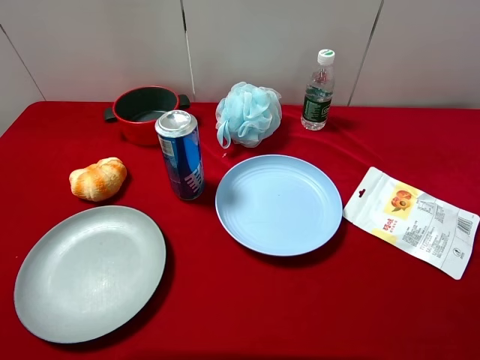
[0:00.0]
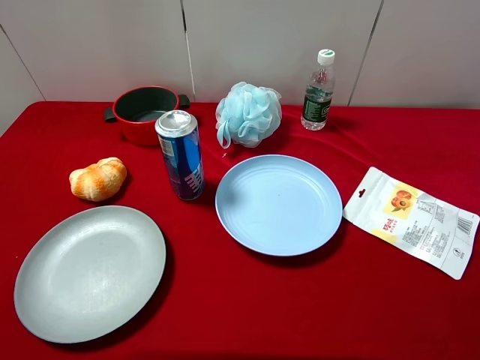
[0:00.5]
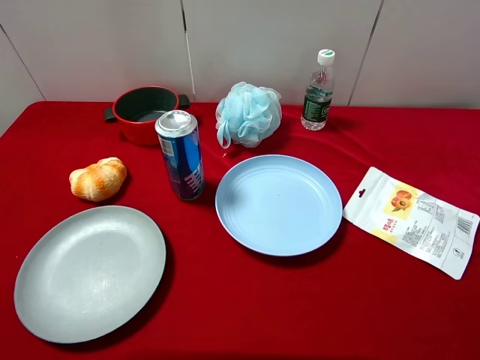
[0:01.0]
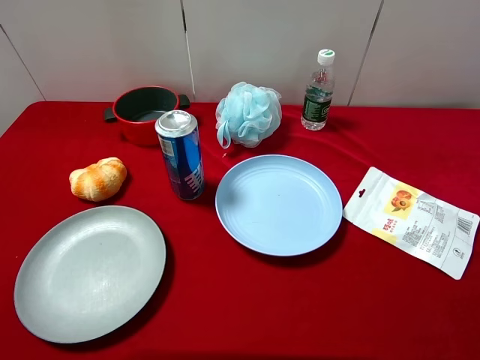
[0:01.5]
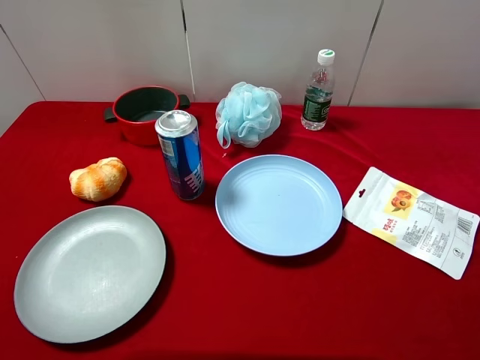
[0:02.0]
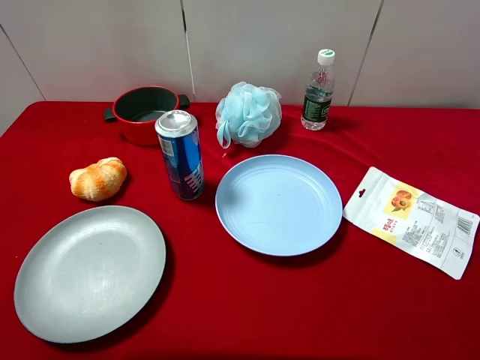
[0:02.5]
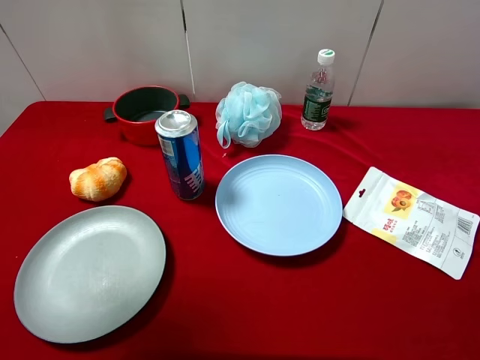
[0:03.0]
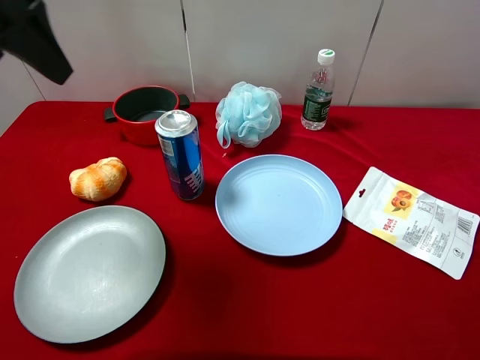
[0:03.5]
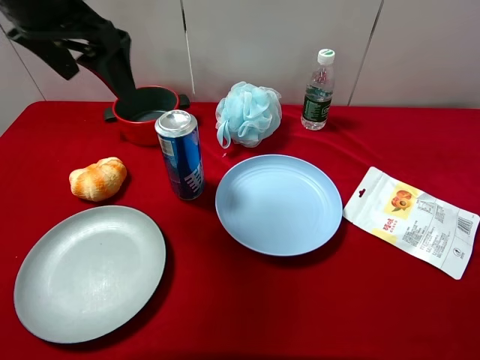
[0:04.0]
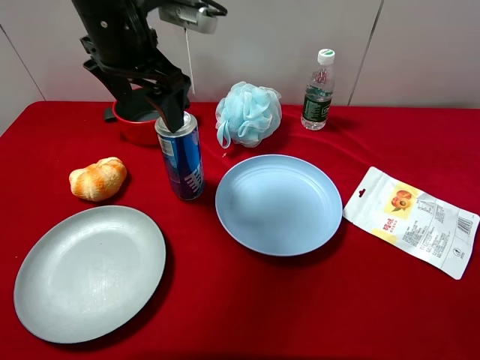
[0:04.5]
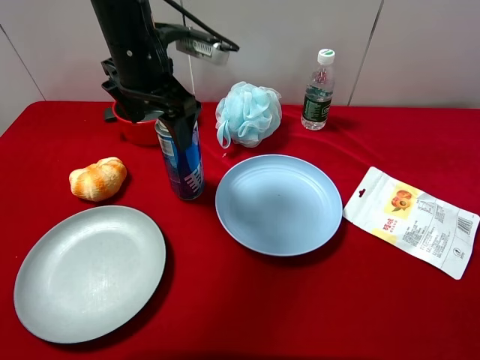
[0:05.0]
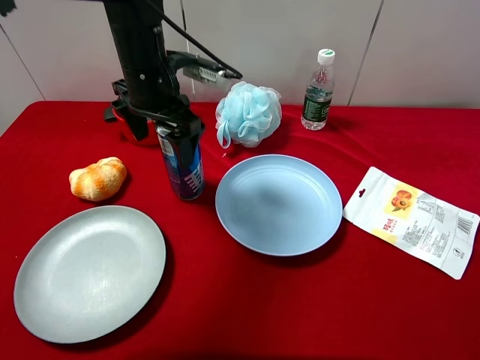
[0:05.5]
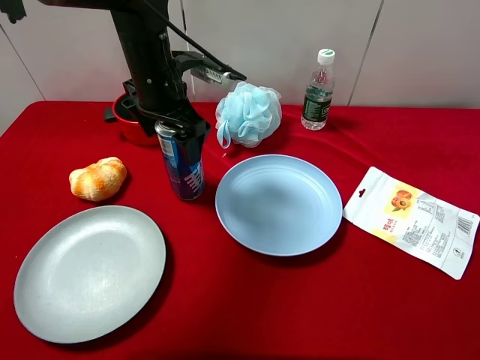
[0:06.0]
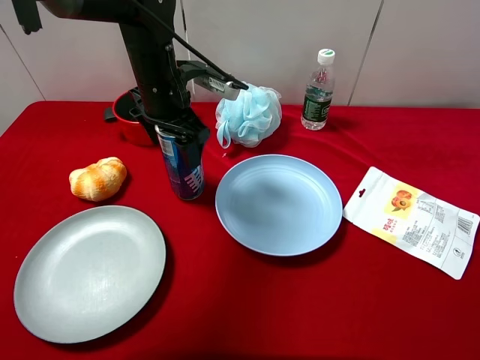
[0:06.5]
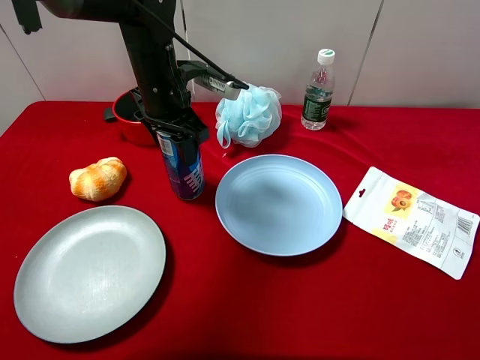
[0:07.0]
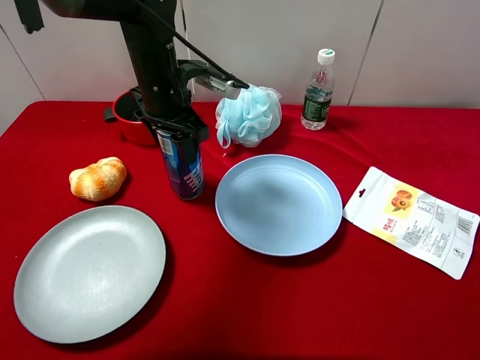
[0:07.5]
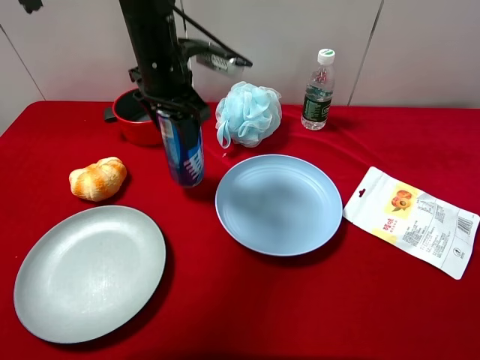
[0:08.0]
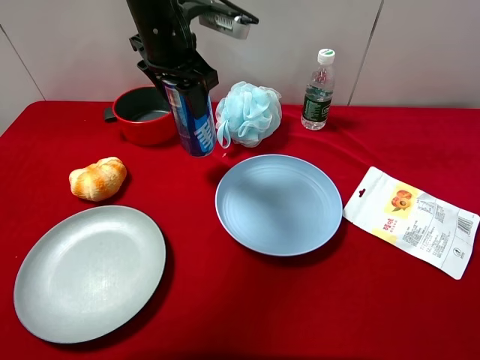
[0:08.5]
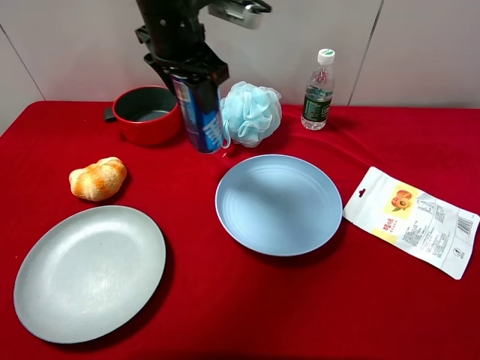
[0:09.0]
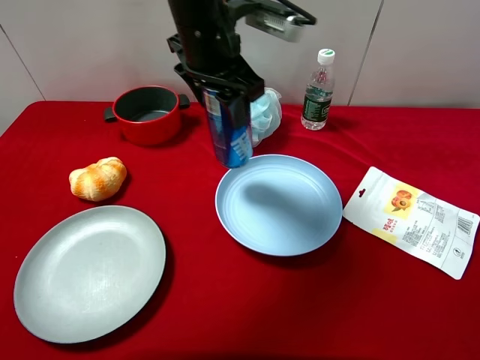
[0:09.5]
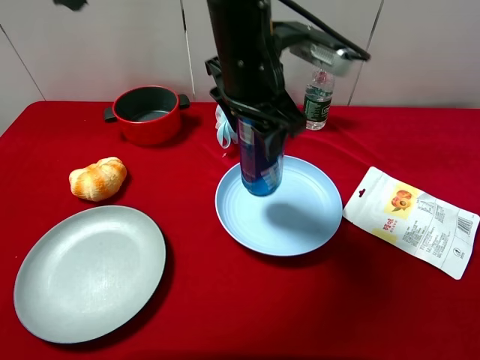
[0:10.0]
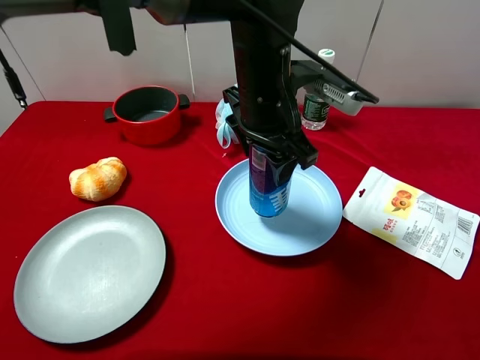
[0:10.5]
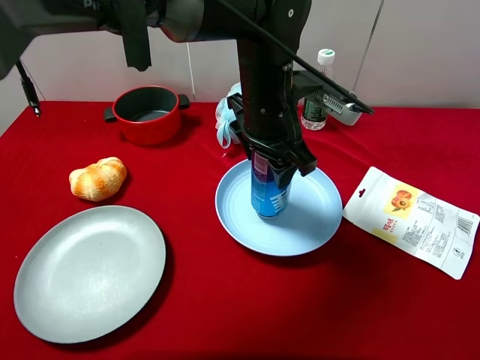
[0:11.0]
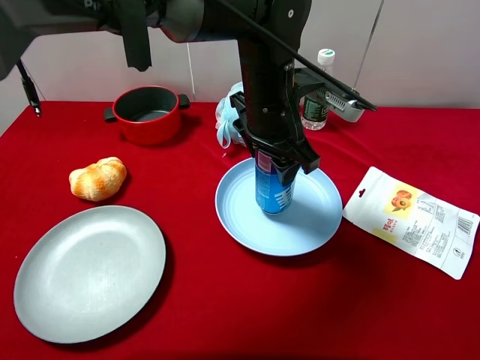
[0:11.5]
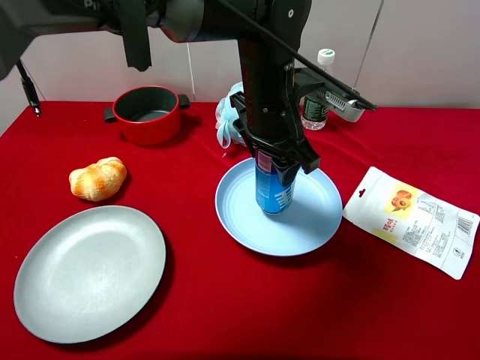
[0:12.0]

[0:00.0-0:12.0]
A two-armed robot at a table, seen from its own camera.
Task of the whole recording: pick up an item with a gripper and place it in a random container on the desktop.
0:02.0 to 0:04.0: The left gripper moves forward and to the right, some 30 cm.
0:04.0 to 0:06.0: The left gripper goes some 15 cm downward, to the right and forward.
0:06.0 to 0:08.0: The left gripper closes its fingers.
0:08.0 to 0:10.0: The left gripper is displaced to the right and backward by approximately 15 cm.
0:10.0 to 0:12.0: The left gripper is displaced downward by some 5 cm.

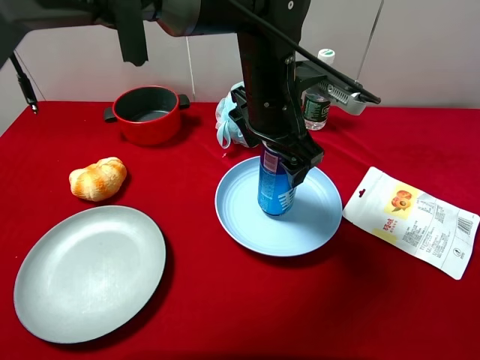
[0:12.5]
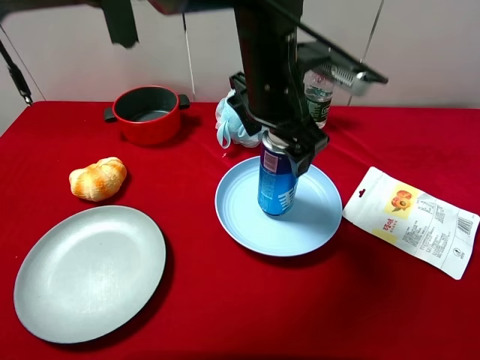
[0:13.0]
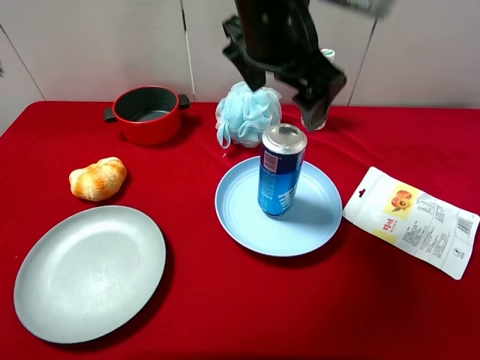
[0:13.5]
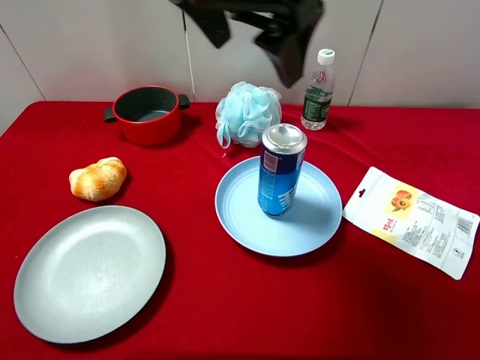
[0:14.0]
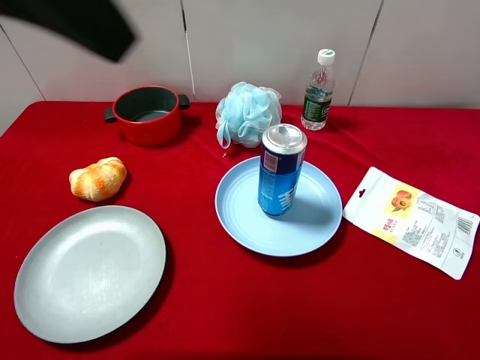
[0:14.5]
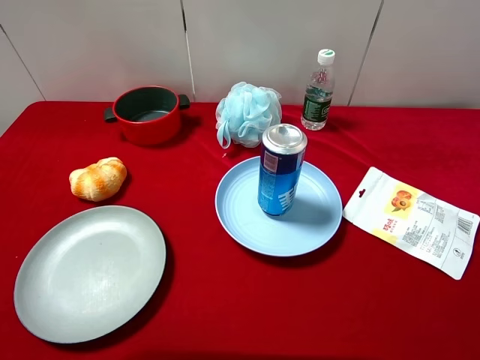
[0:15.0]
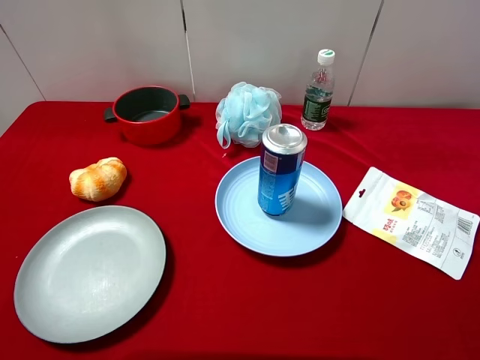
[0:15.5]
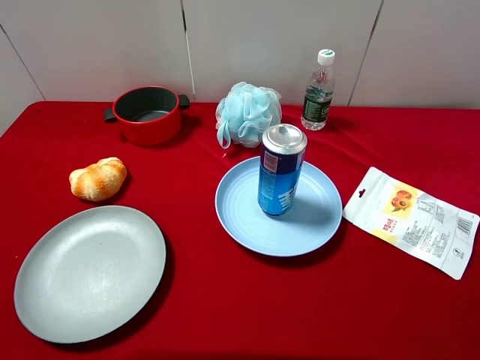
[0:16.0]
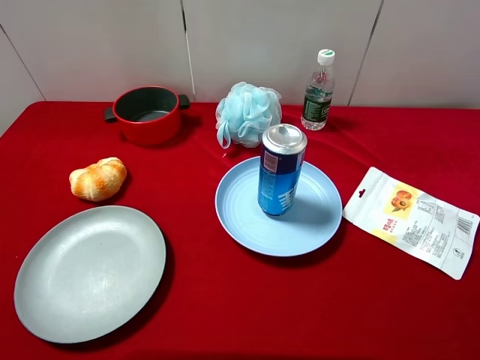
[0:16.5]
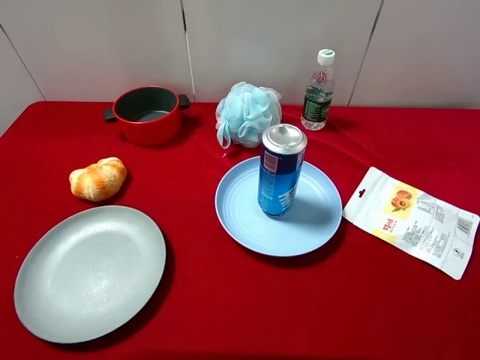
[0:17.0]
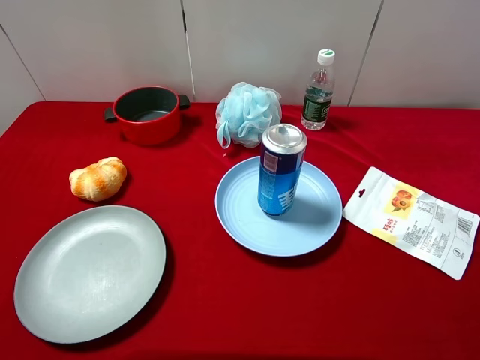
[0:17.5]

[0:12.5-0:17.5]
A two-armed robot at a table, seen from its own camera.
Task of the whole recording: pick up an item with a gripper and place it in a random container on the desktop.
0:12.5 to 0:15.0: The left gripper heads to the left, backward and upward, covering some 40 cm.

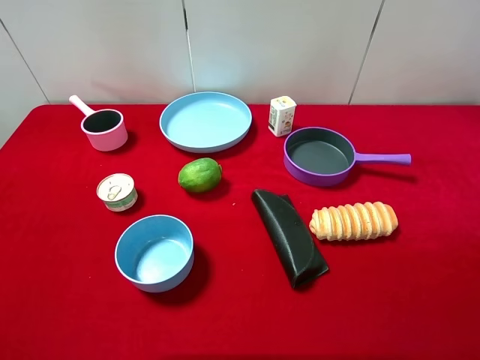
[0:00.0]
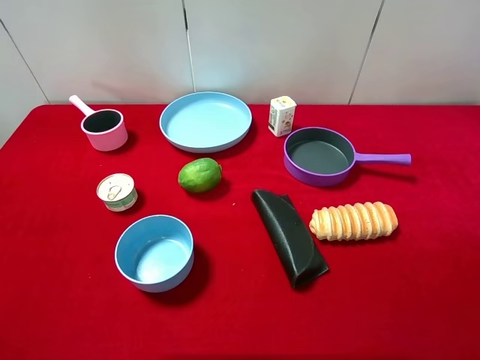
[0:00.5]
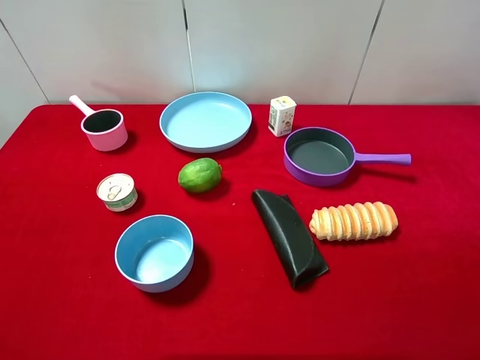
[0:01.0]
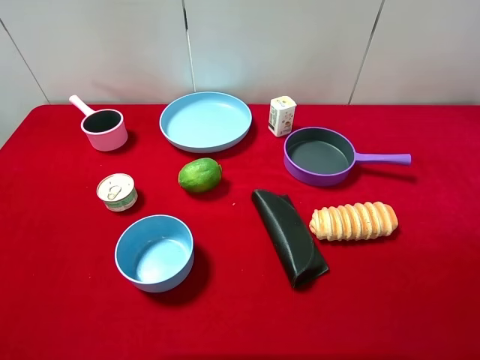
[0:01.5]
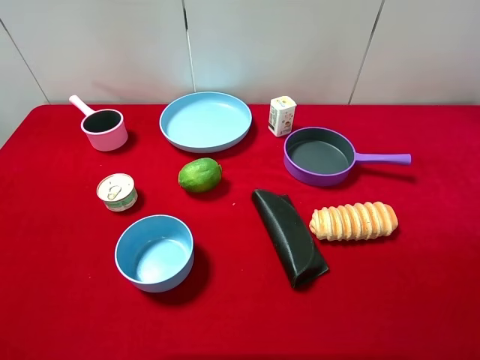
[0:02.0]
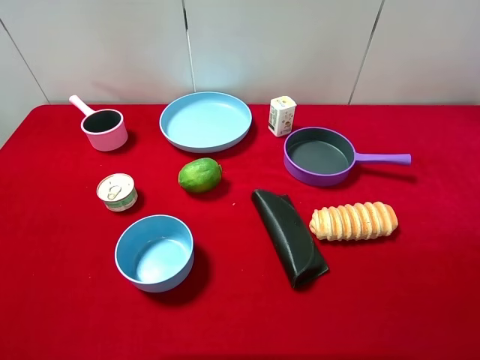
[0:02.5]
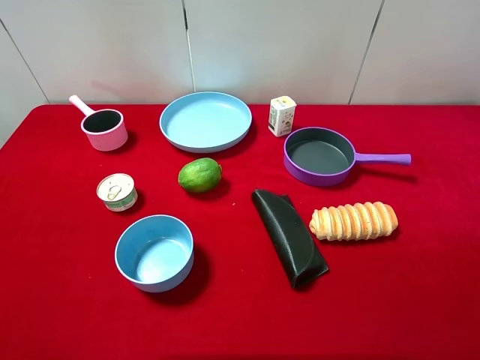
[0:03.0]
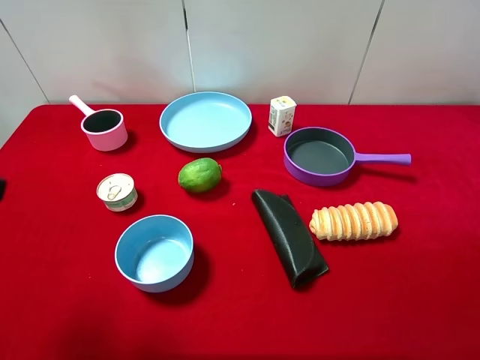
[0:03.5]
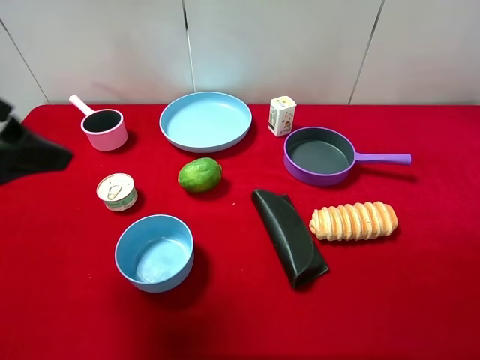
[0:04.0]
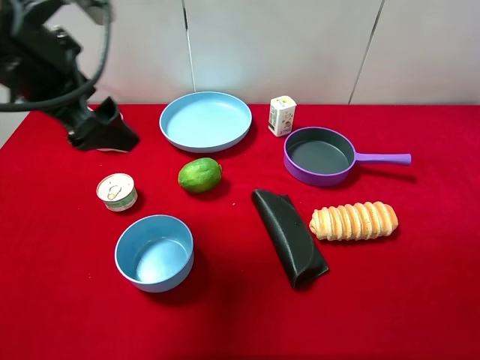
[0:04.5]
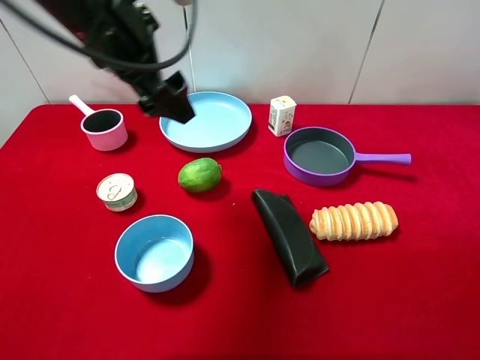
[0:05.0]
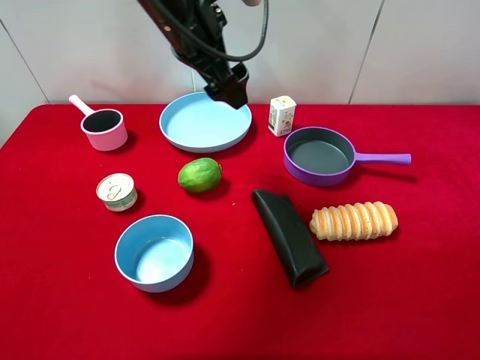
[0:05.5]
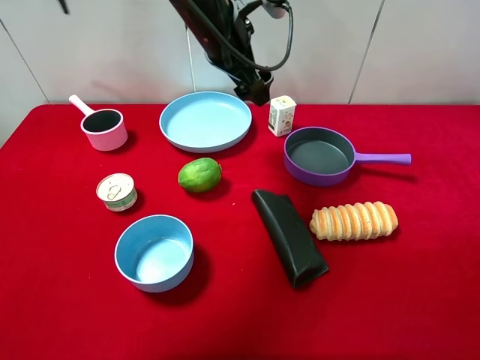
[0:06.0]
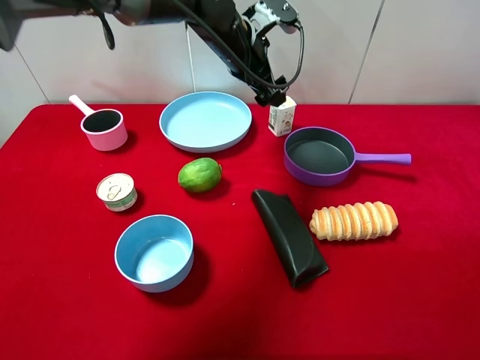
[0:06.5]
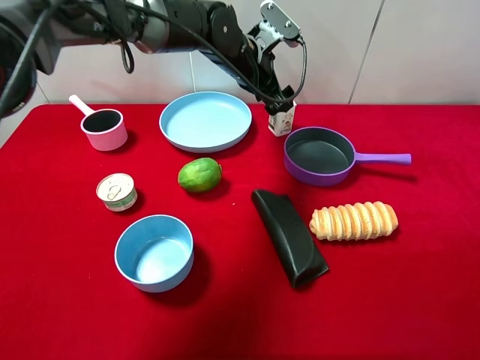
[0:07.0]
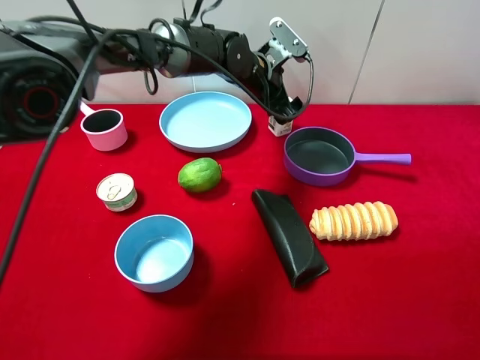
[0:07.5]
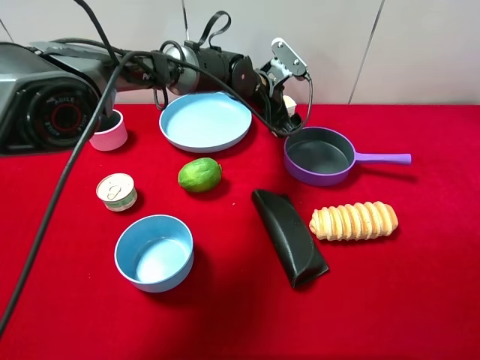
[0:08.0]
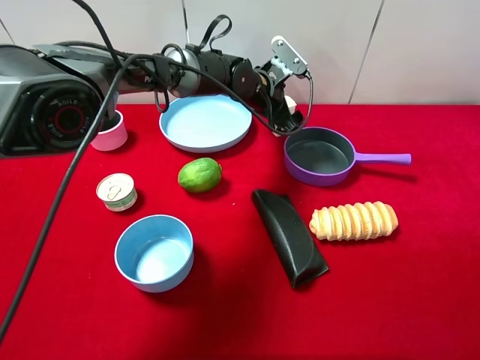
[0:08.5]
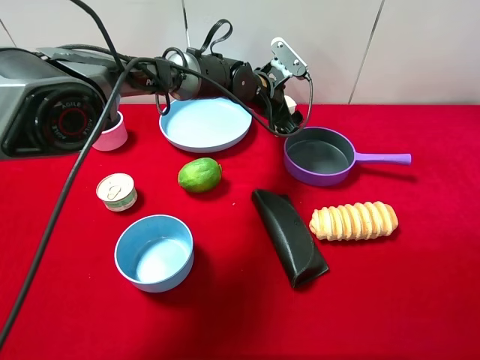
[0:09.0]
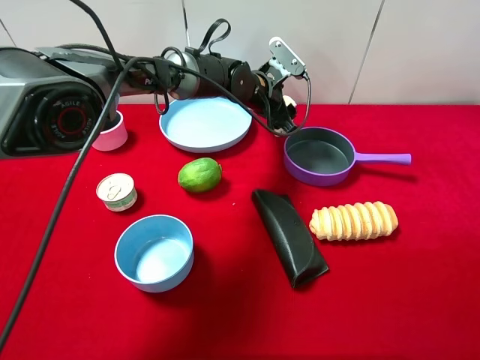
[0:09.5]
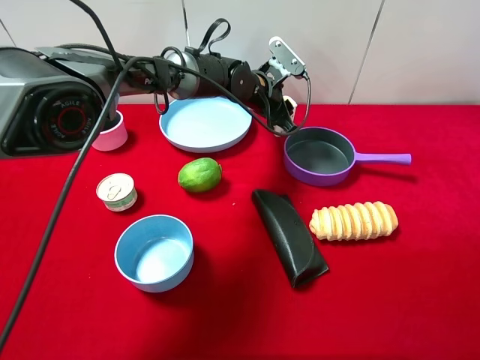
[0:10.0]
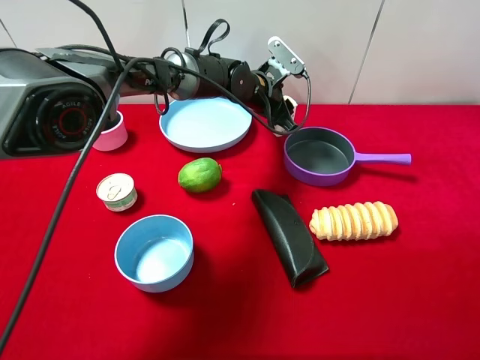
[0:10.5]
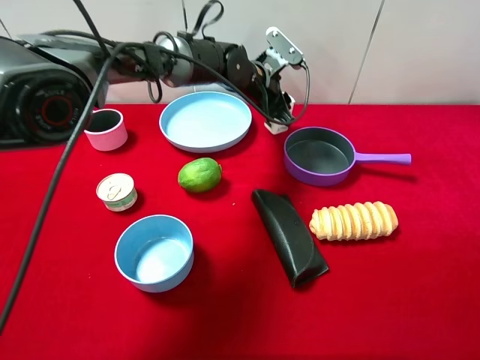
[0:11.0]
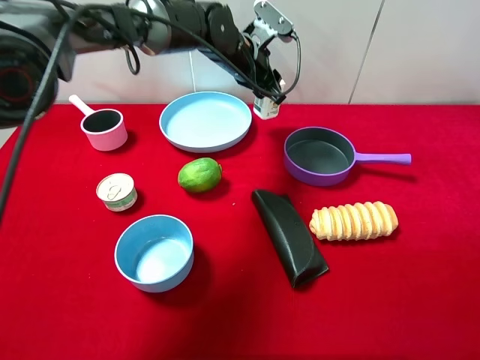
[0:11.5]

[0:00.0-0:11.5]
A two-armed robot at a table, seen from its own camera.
Task of the whole recording: pick up an item with a gripper and place it in a random container on the desktop.
0:00.0 to 0:02.0: Both grippers stay about where they are.
0:02.0 to 0:04.0: The left gripper shifts about 20 cm forward and to the right.
0:04.0 to 0:06.0: The left gripper heads forward and to the right, covering some 30 cm.
0:06.0 to 0:07.5: The left gripper goes some 15 cm downward, forward and to the right.
0:07.5 to 0:09.5: The left gripper closes.
0:09.5 to 0:11.5: The left gripper shifts roughly 5 cm upward.
